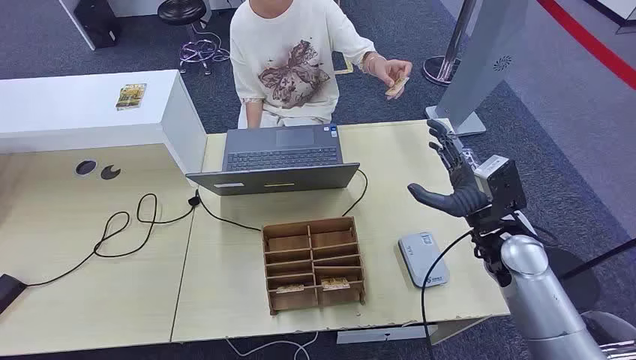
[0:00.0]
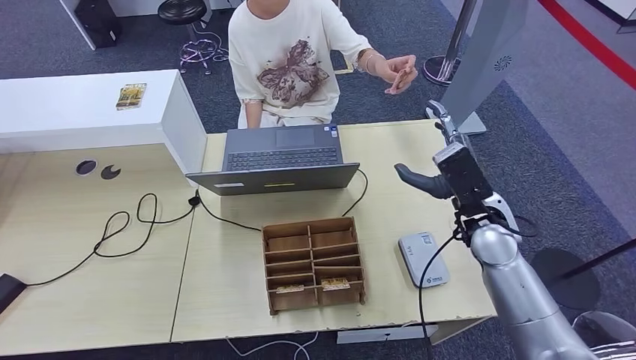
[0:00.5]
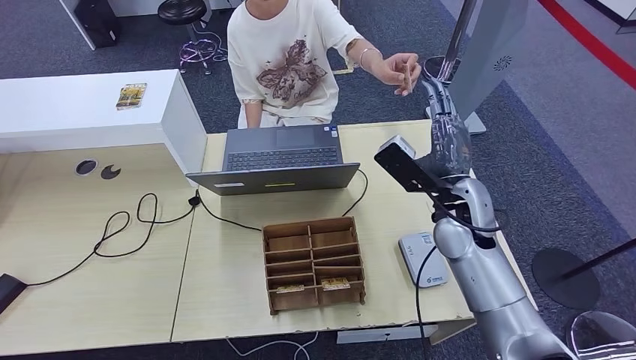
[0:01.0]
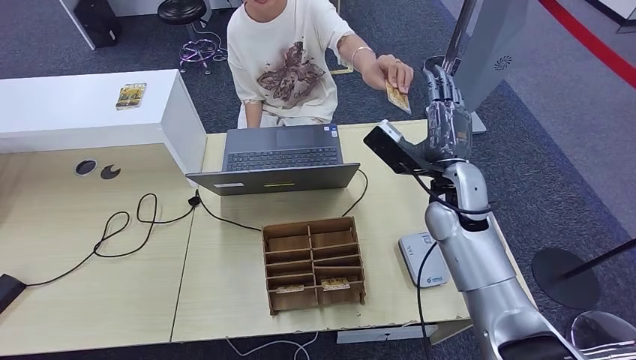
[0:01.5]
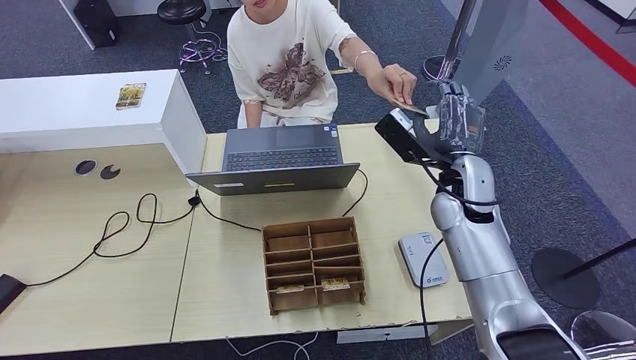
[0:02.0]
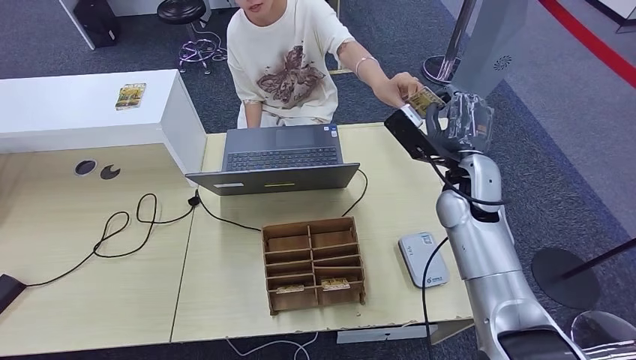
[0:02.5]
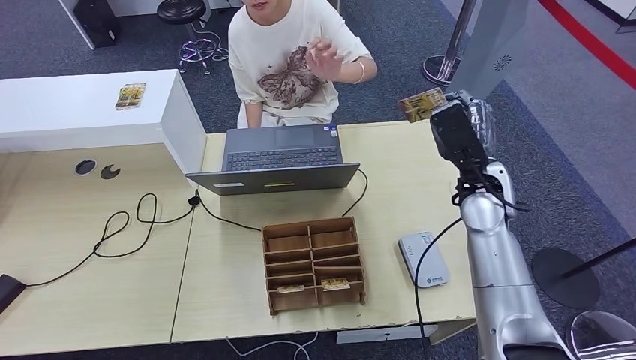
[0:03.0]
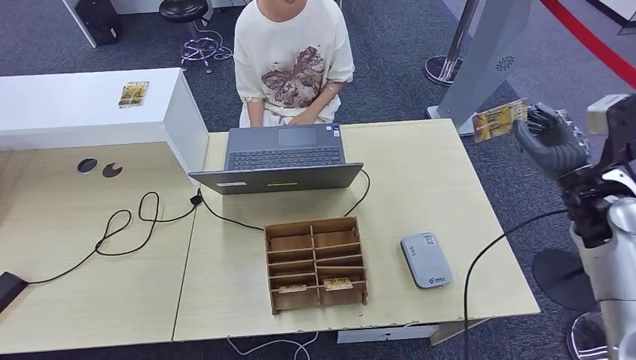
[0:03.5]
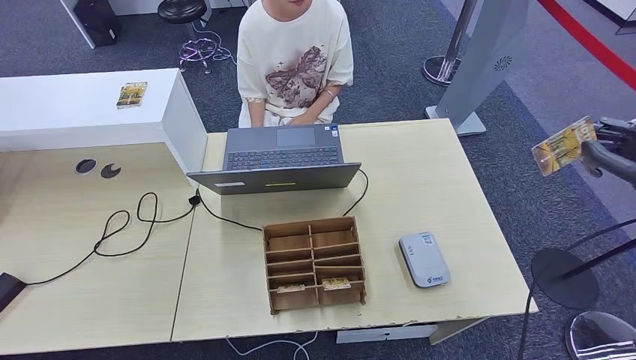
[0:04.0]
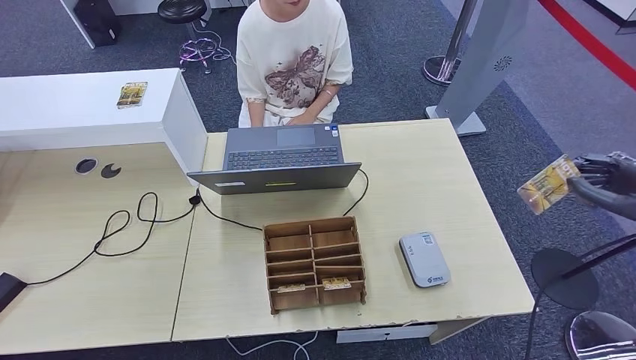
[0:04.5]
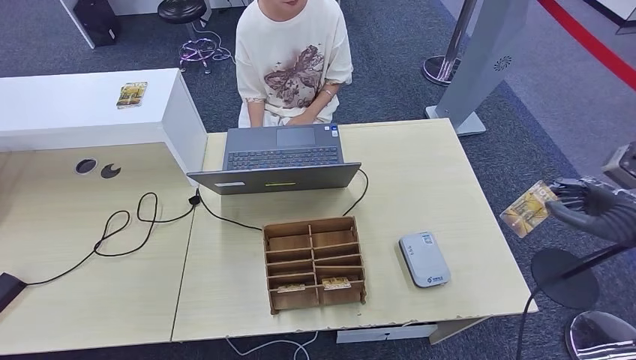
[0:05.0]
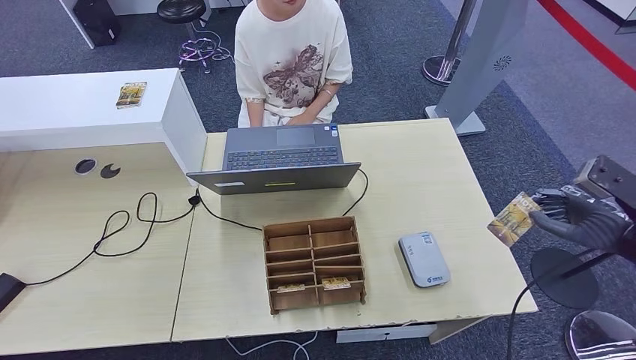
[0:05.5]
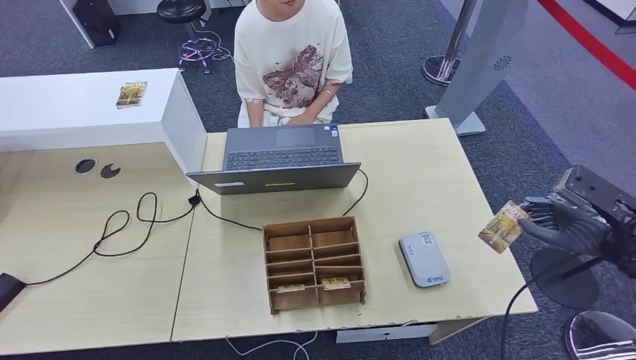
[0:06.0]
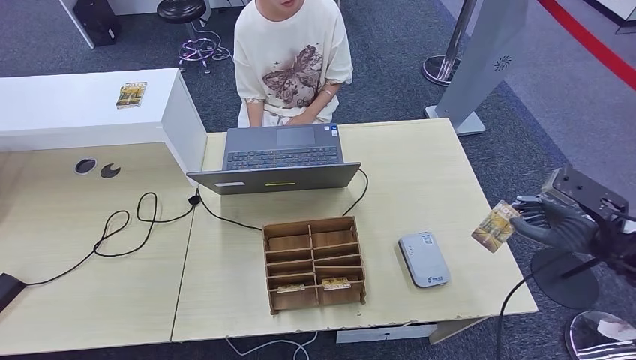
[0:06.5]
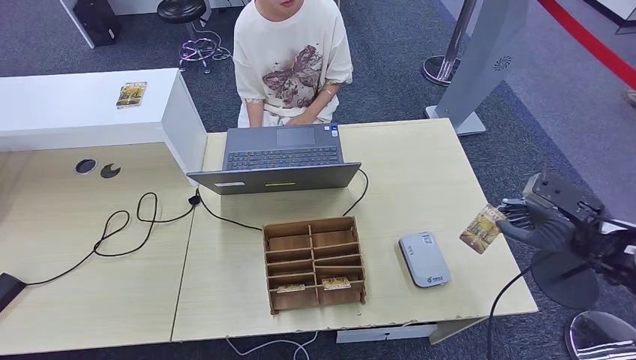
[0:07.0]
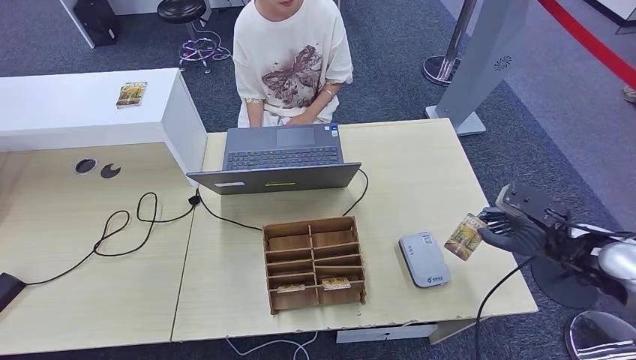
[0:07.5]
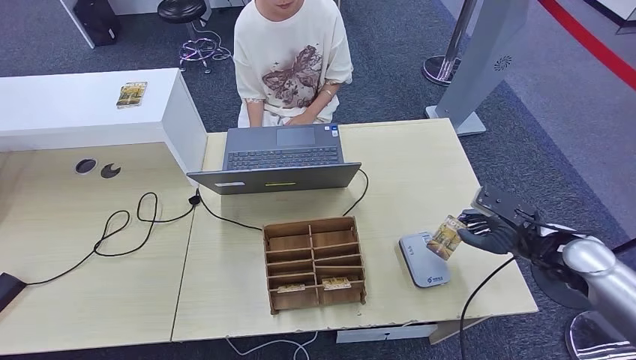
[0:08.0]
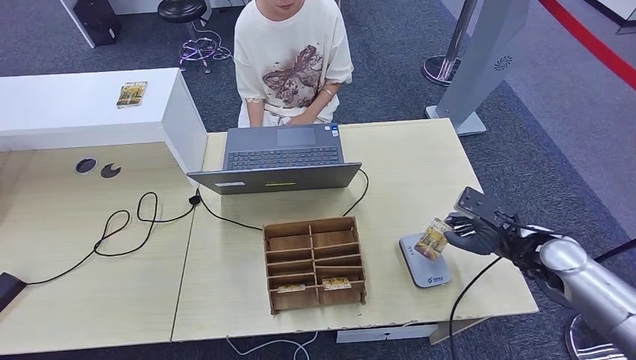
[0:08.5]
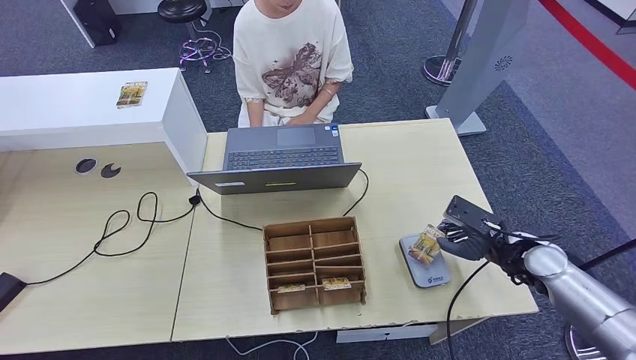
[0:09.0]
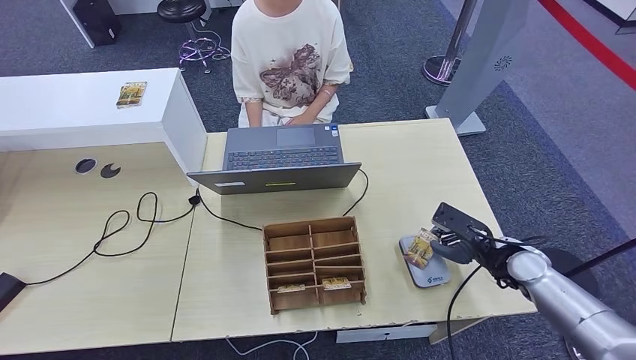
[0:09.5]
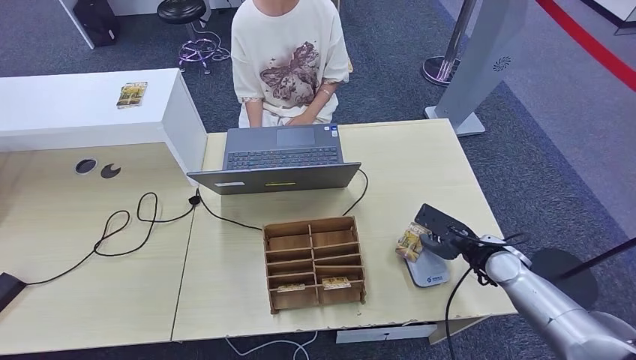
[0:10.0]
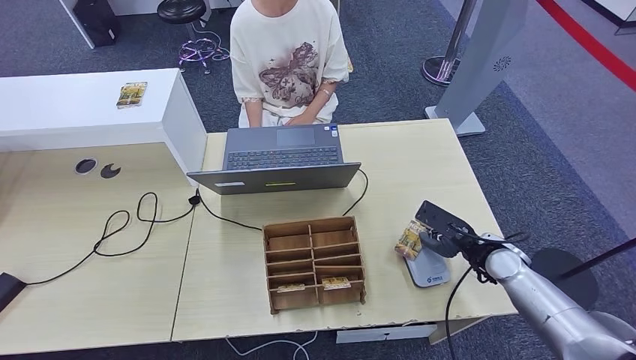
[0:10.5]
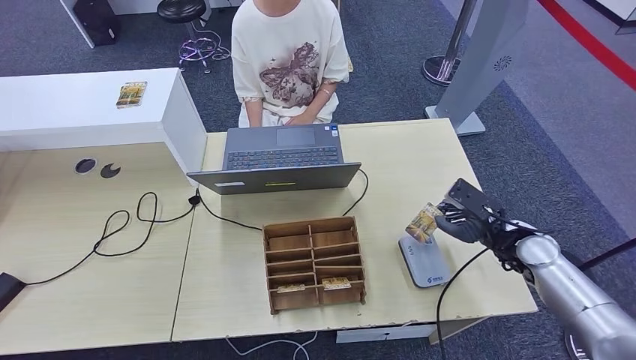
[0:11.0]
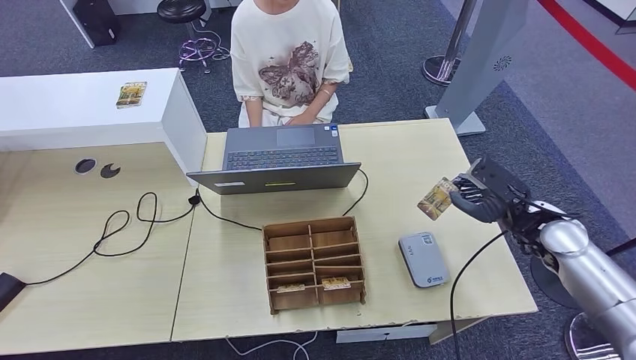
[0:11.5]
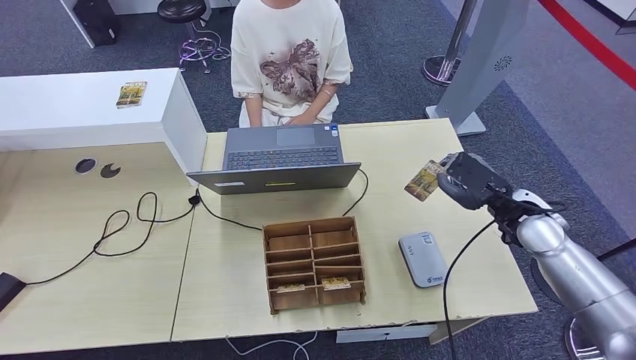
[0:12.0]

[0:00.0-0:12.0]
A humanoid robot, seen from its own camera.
Step, 0:00.0 to 0:03.5: Take the ID card from the person's hand.
0:02.0 to 0:04.0: The right hand goes some 35 cm to the right and backward.
0:04.0 to 0:06.0: The right hand travels downward by some 5 cm.
0:06.0 to 0:08.0: The right hand shifts some 10 cm downward, to the left and forward.
0:08.0 to 0:10.0: The right hand shifts approximately 10 cm to the left and downward.
0:10.0 to 0:12.0: The right hand heads upward, covering approximately 10 cm.

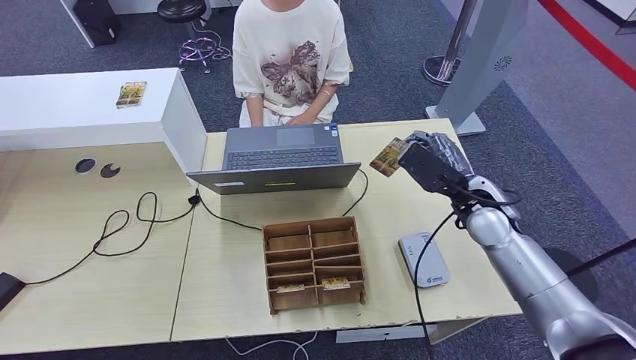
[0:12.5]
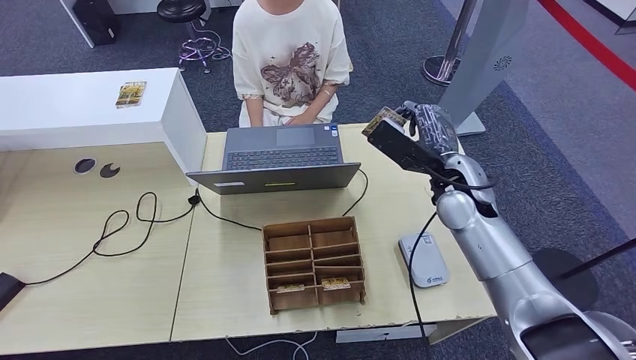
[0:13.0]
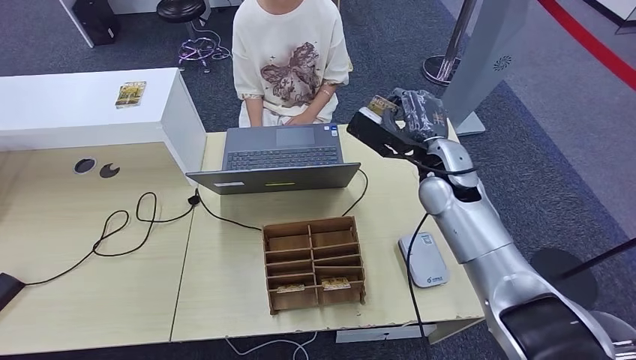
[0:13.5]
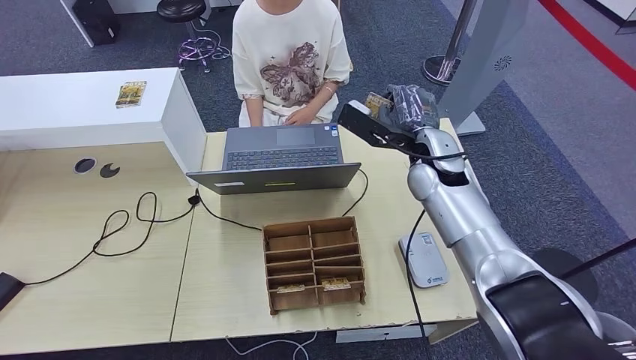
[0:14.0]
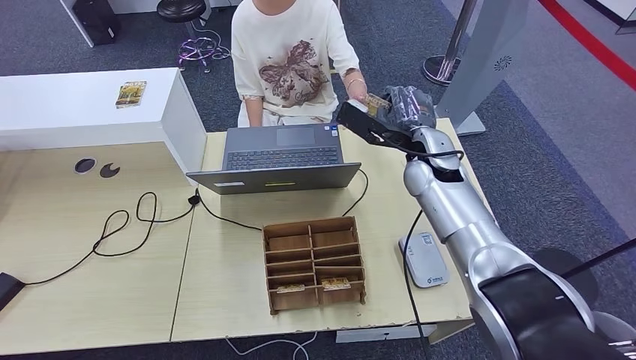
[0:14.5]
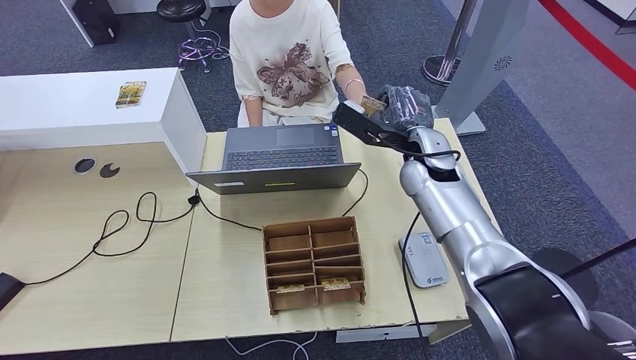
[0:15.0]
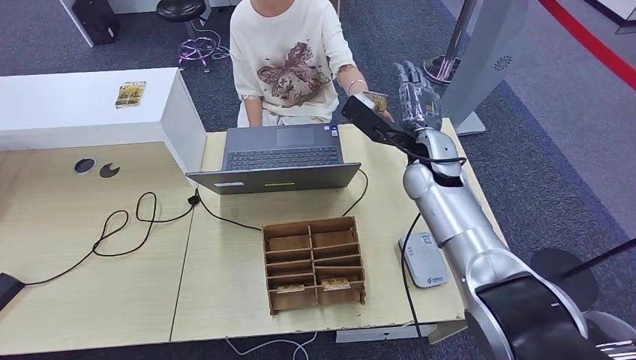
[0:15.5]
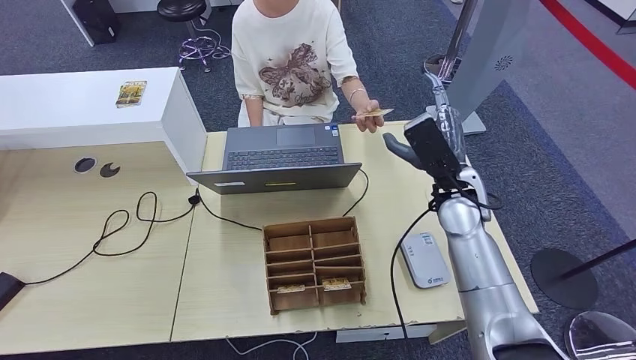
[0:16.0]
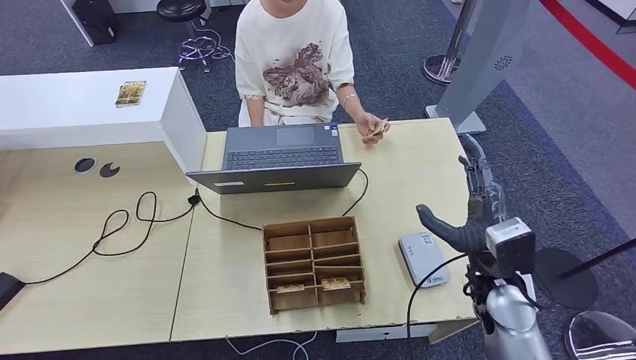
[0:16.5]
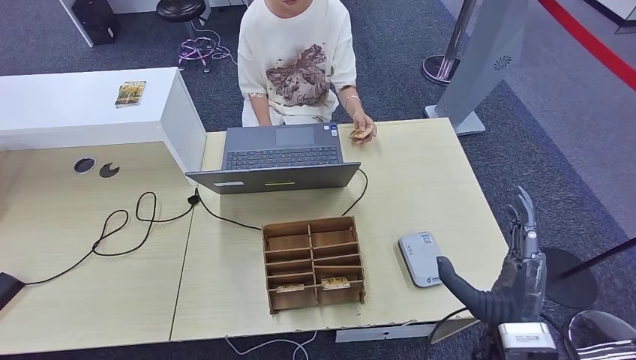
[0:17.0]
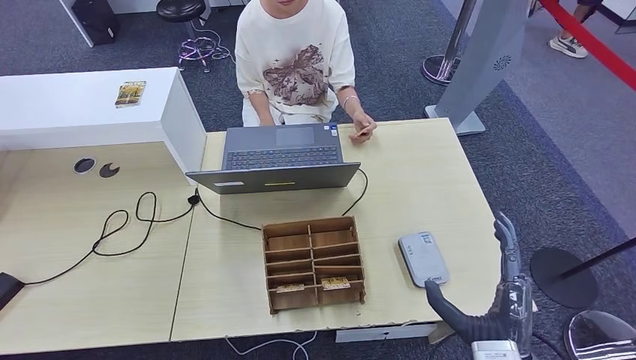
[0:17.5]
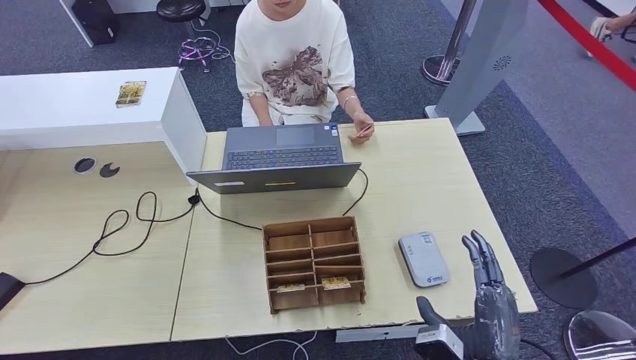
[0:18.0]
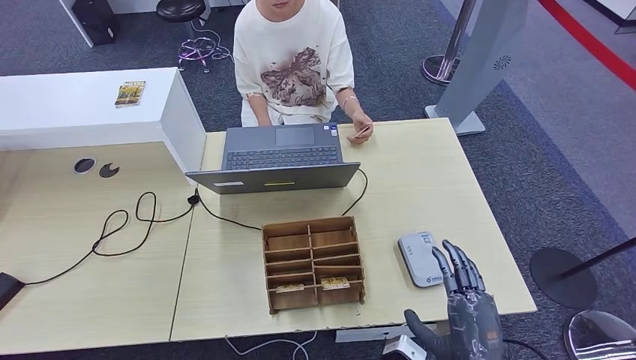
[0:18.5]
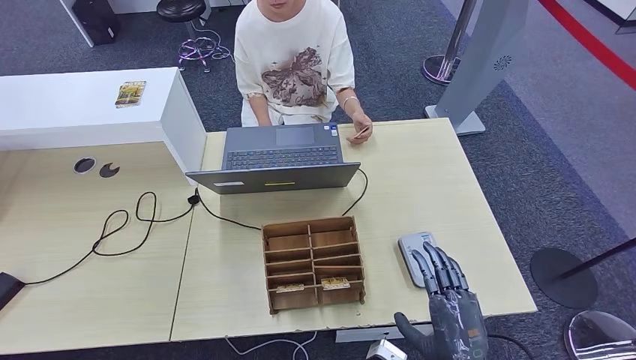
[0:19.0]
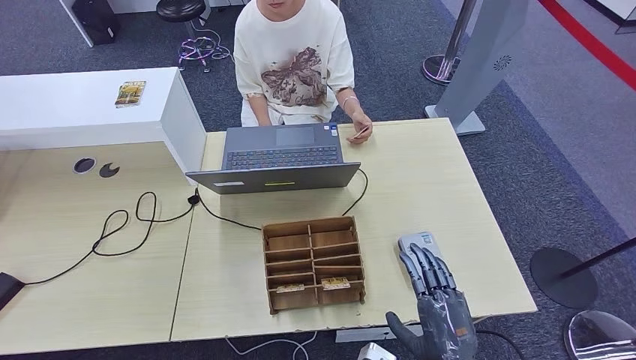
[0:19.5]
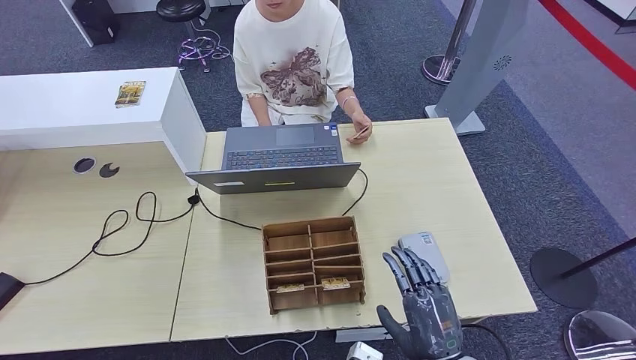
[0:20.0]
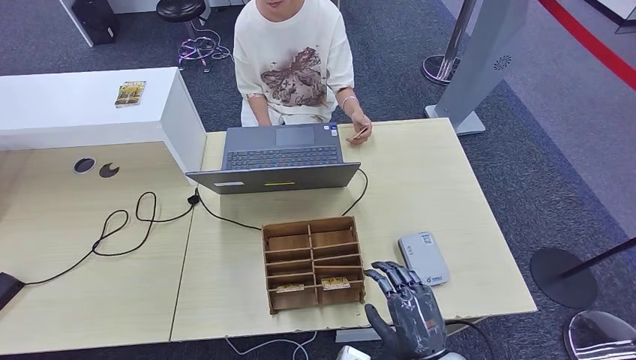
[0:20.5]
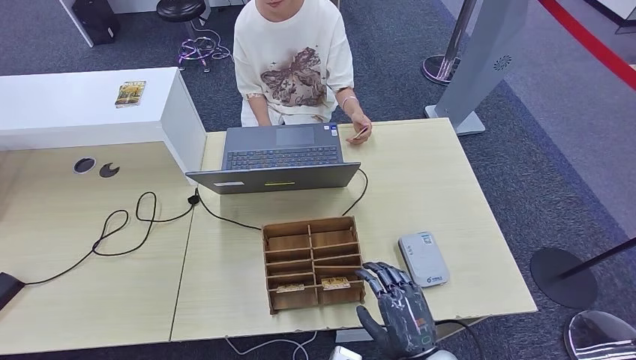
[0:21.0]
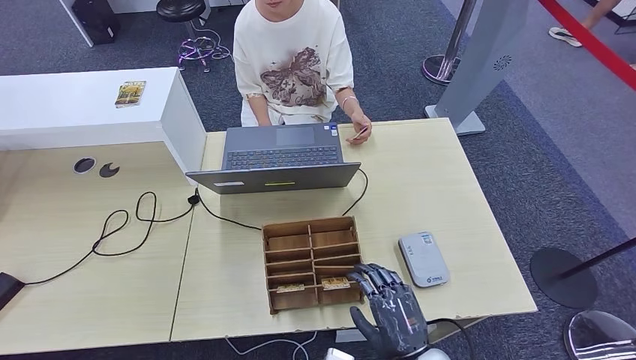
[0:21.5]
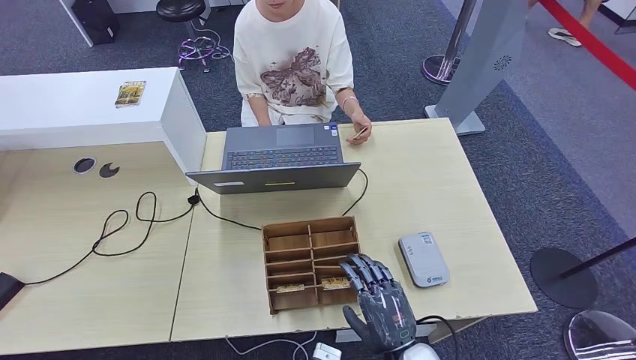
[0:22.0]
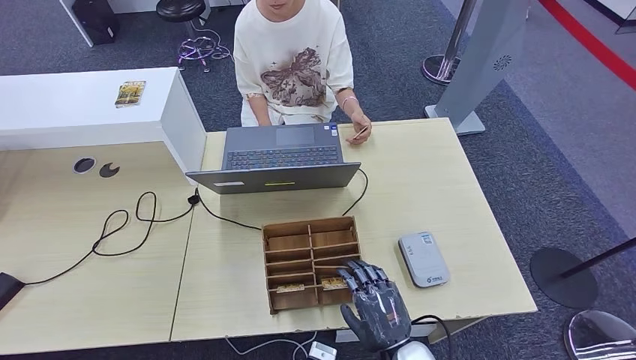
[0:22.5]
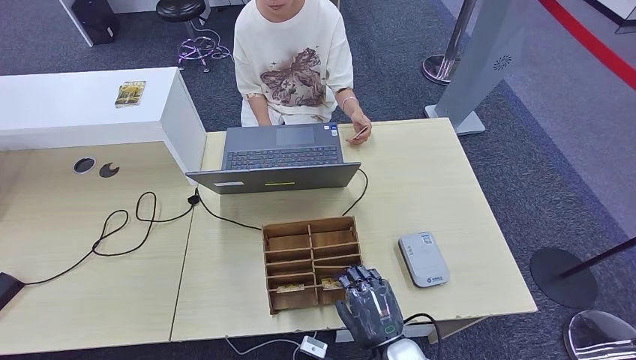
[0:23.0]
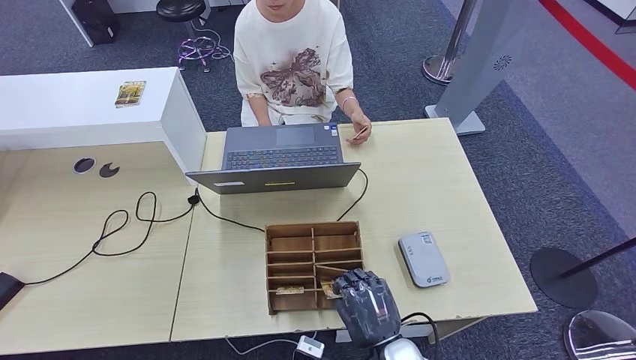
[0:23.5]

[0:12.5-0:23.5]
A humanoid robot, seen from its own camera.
Step, 0:12.5 to 0:17.0: Hand the ID card to the person.
0:12.5 to 0:14.5: The right hand travels to the left and forward by approximately 15 cm.
0:14.5 to 0:16.0: The right hand goes about 5 cm backward.
0:16.0 to 0:18.0: The right hand is displaced backward by roughly 30 cm.
0:20.0 to 0:21.5: The hands move only a little.
0:21.5 to 0:23.5: The hands stay close to where they were, moving slightly.
